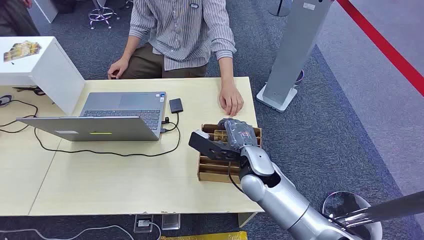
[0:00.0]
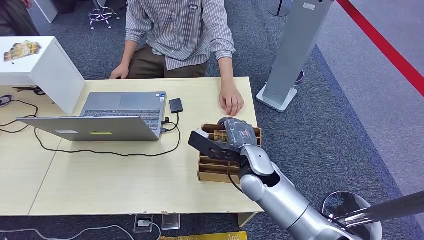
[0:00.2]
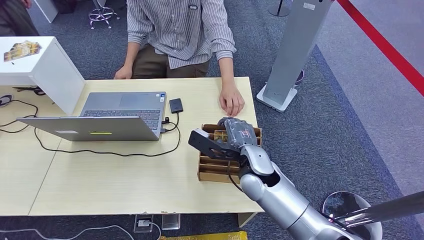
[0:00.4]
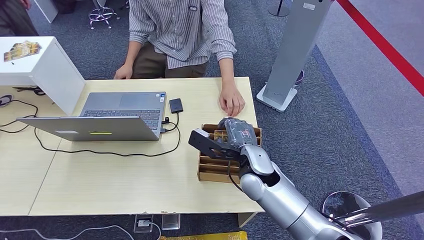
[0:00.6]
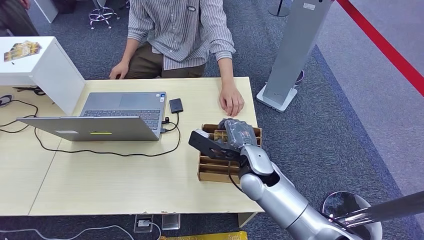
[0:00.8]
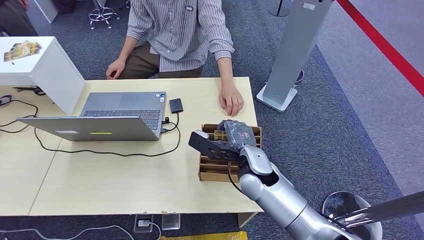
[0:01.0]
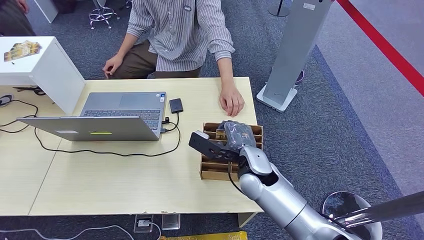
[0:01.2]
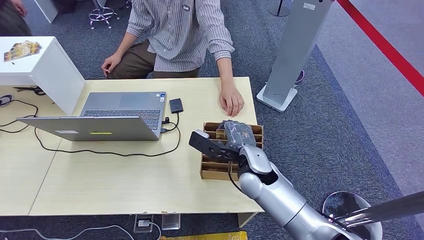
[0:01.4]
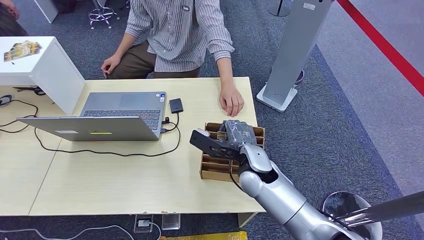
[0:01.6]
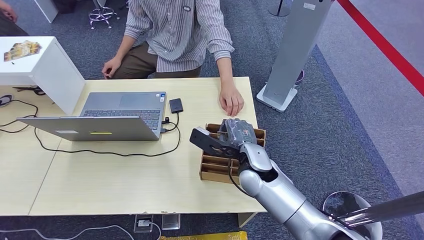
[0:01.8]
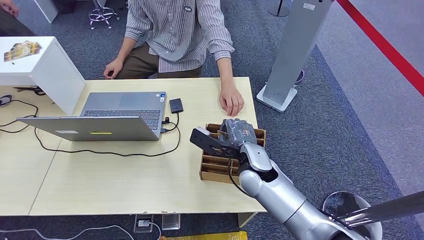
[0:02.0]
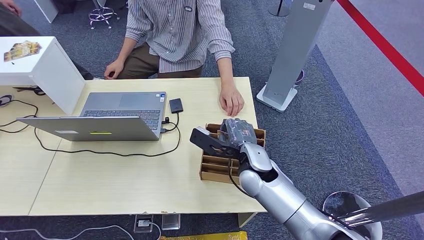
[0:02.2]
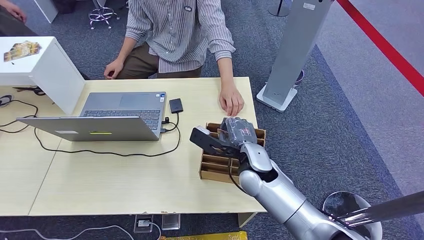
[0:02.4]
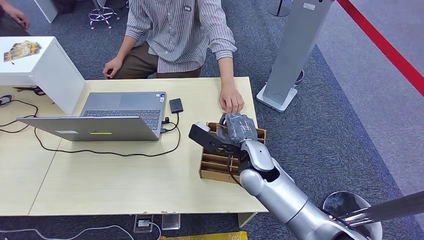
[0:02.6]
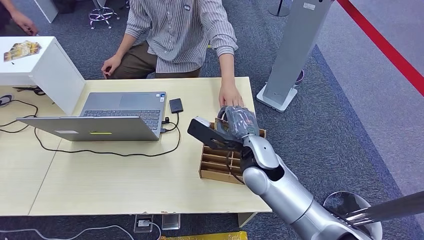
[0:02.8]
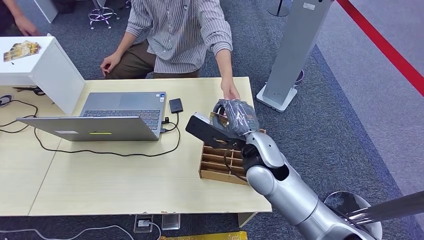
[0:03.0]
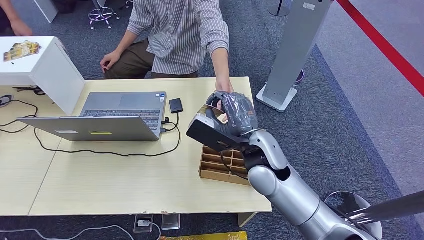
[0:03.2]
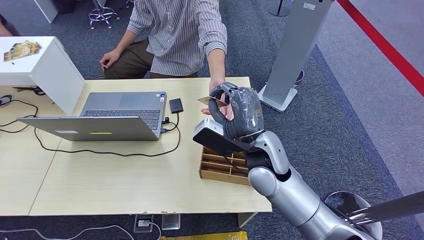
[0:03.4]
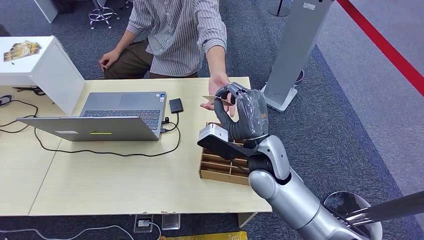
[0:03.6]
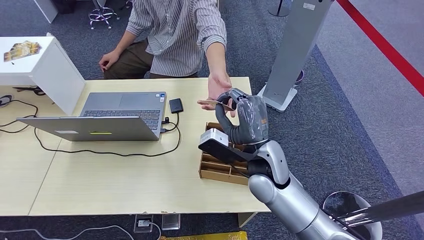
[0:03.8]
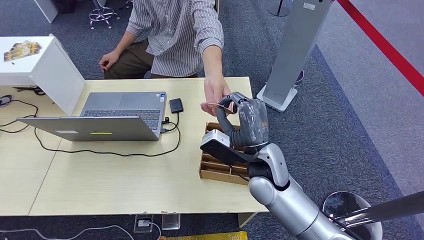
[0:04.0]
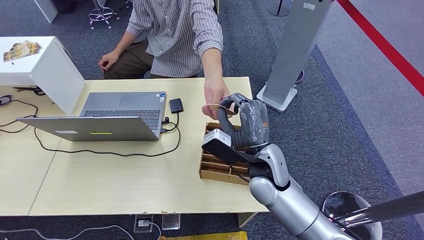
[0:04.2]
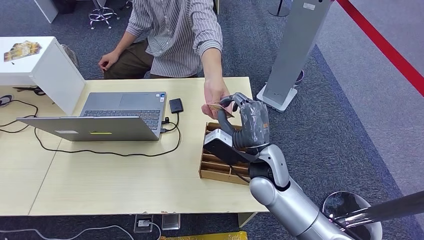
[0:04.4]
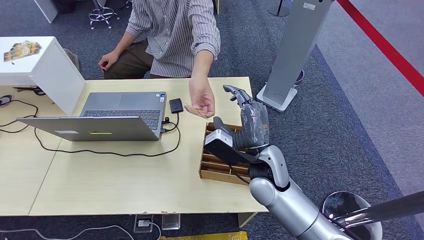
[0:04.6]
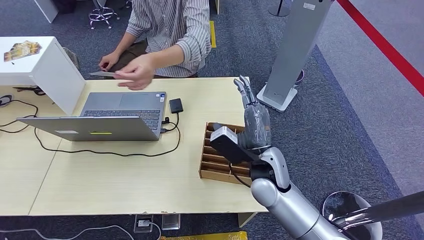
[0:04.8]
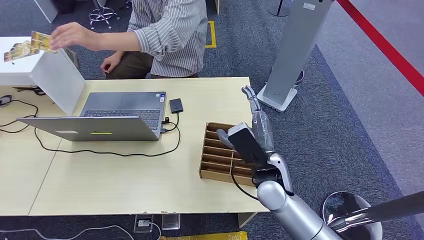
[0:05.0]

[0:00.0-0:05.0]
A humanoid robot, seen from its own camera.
Step, 0:00.0 to 0:02.8: Pick up the room card from the card holder.
Step, 0:03.8 to 0:04.8: Hand the room card to the target.
0:01.6 to 0:03.4: The right hand moves upward, roughly 5 cm.
0:03.4 to 0:05.0: The right hand heads downward, covering some 5 cm.
